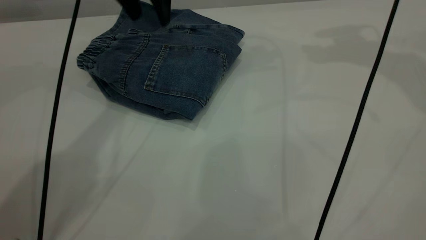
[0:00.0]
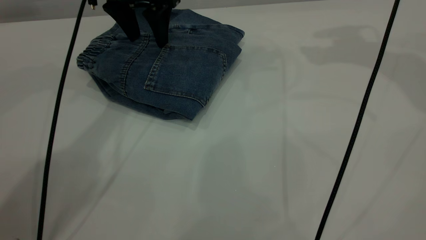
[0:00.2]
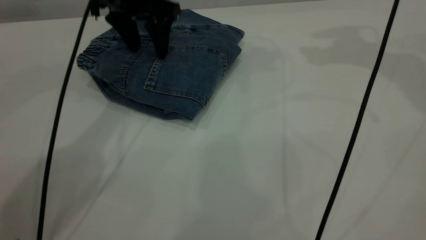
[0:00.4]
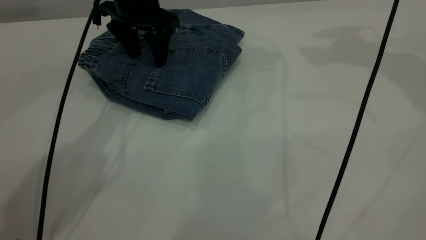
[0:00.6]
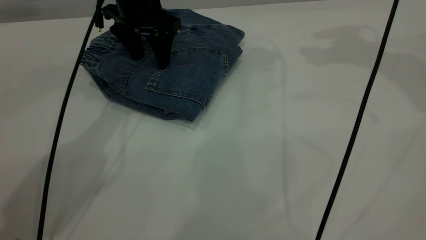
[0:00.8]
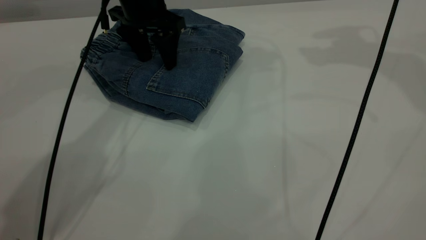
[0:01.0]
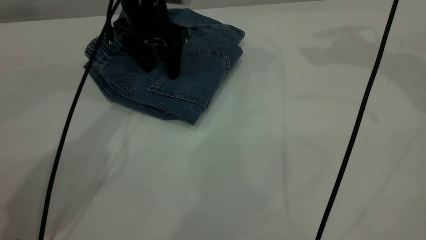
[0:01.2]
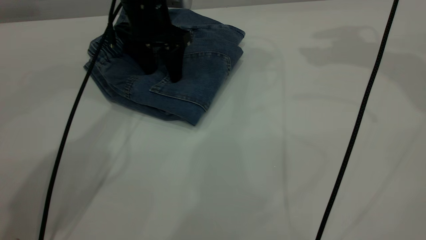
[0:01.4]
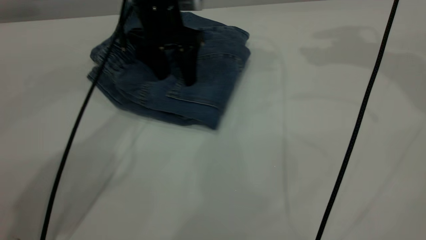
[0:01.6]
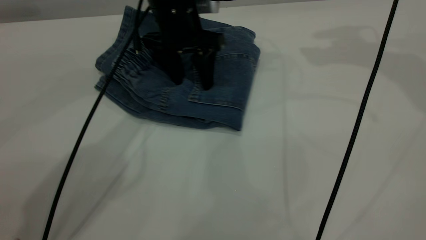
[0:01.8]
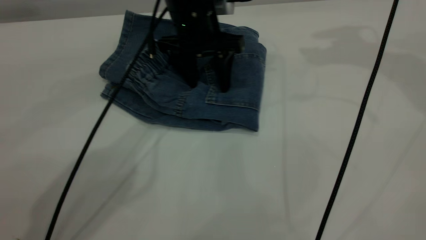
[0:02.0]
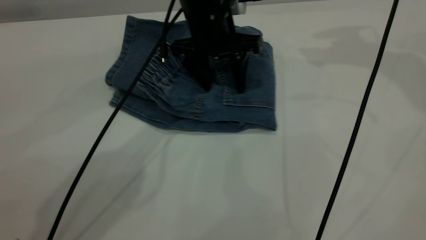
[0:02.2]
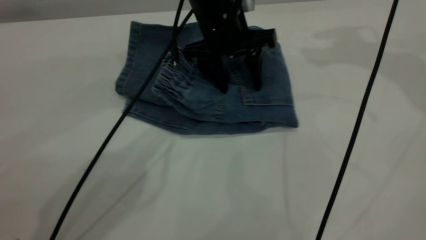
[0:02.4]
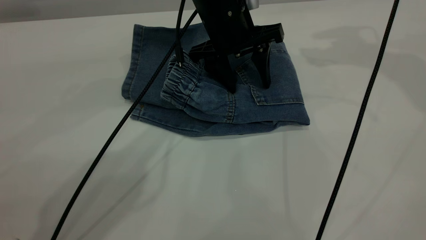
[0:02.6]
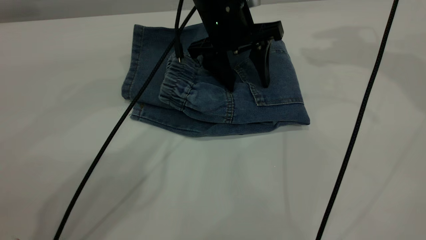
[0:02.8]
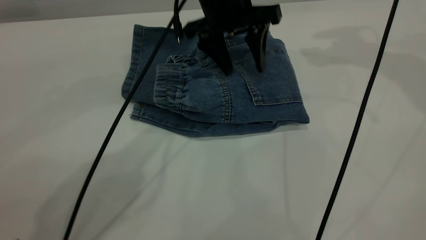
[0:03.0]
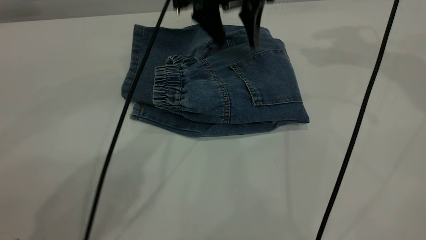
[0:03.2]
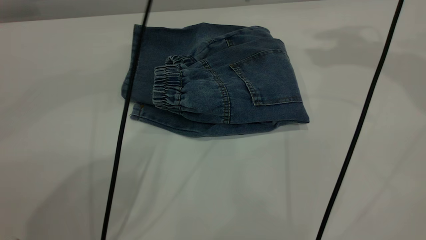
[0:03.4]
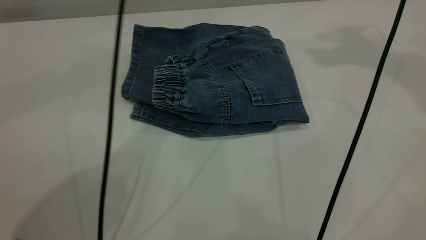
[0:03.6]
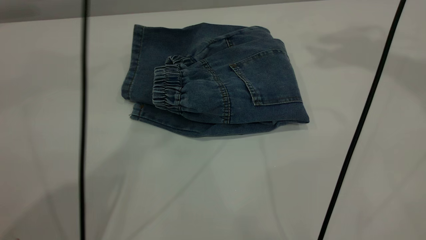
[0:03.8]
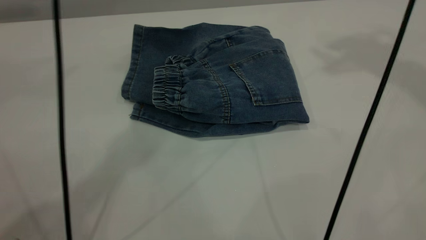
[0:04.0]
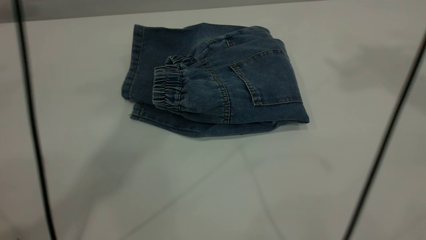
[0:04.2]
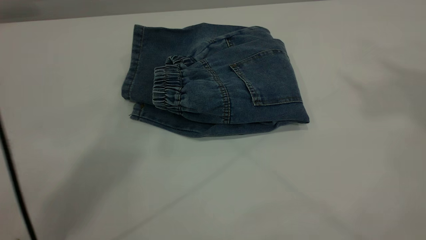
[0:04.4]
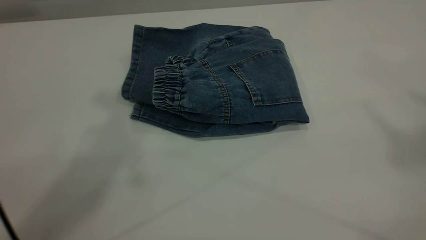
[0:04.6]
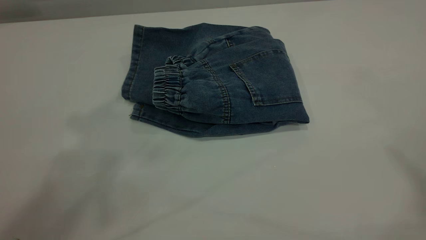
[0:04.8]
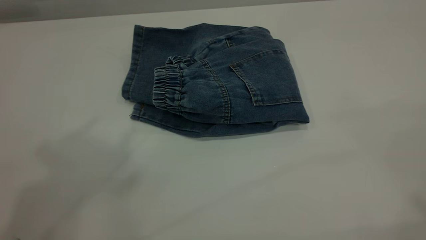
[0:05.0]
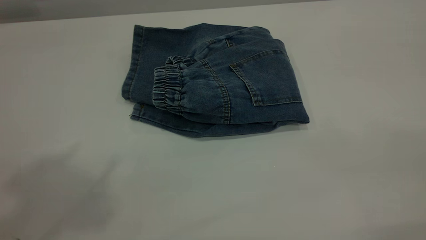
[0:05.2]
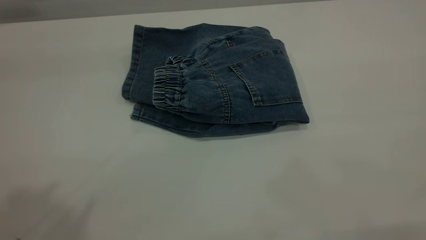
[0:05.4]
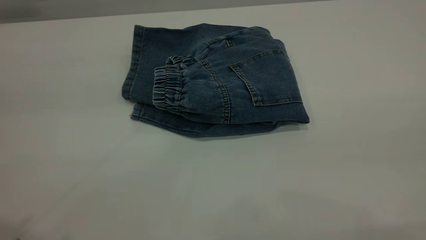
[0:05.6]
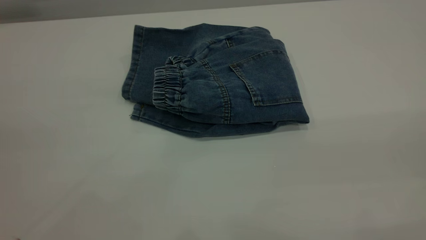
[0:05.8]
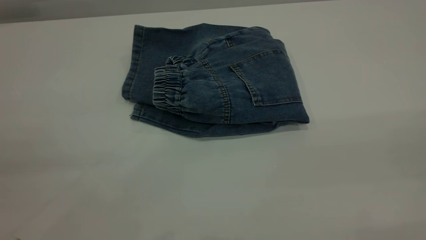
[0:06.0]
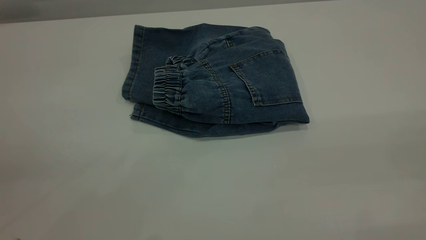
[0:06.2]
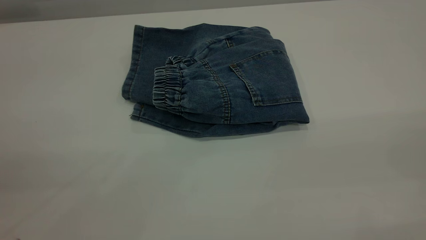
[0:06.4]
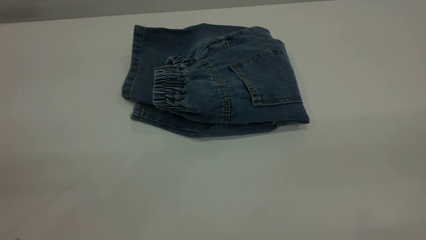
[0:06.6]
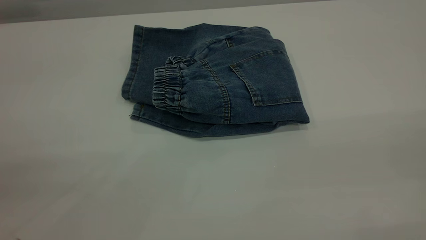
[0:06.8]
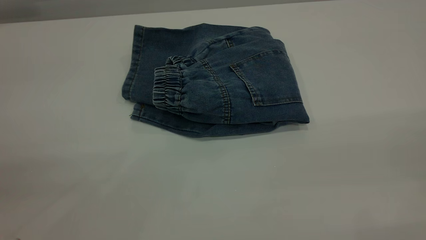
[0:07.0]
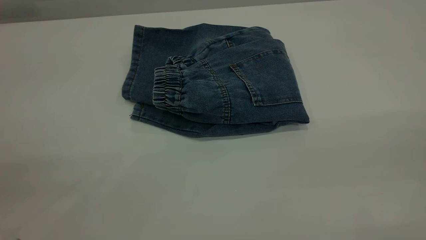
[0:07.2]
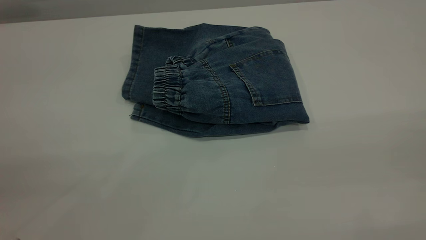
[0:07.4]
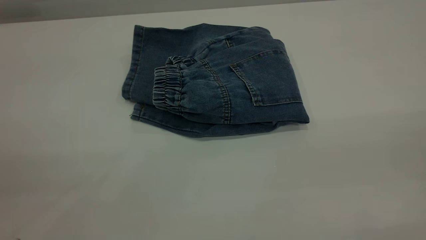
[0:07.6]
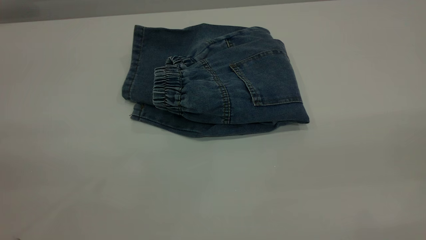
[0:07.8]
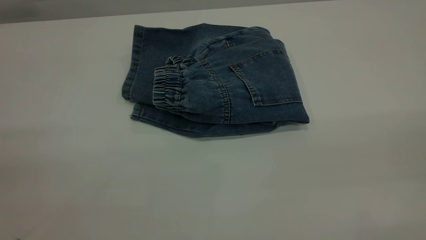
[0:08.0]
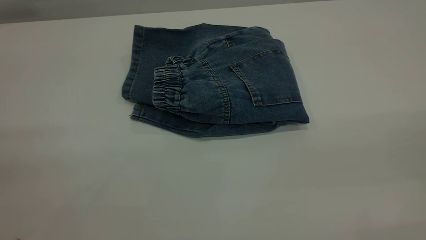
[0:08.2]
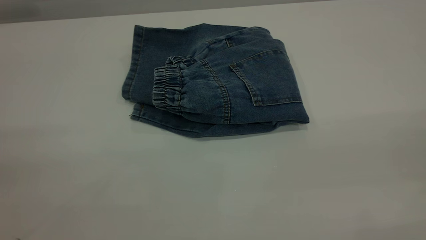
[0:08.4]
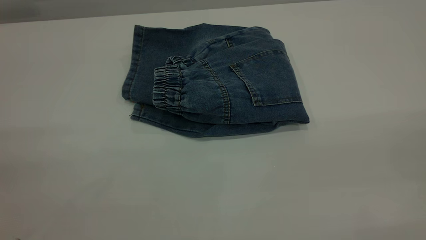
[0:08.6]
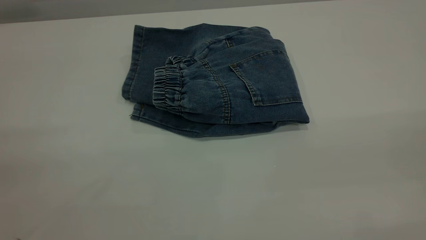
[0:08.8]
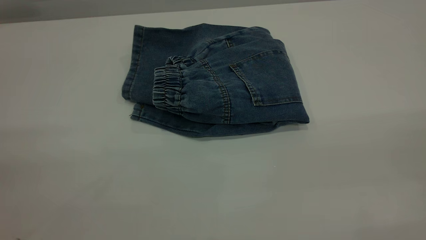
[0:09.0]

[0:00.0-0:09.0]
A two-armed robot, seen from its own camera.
0:00.0 to 0:01.6: The left gripper goes some 10 cm downward.
0:01.6 to 0:03.0: The left gripper travels to the right by some 10 cm.
0:03.0 to 0:04.4: The left gripper heads upward, covering some 40 cm, while the right gripper goes about 35 cm upward and backward.
0:04.4 to 0:06.0: The left gripper heads backward, downward and to the left, covering about 40 cm.
